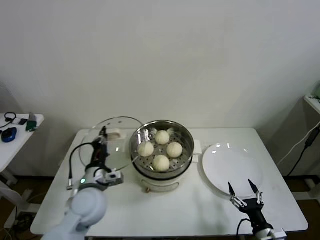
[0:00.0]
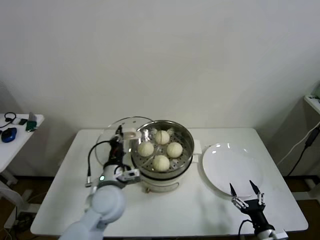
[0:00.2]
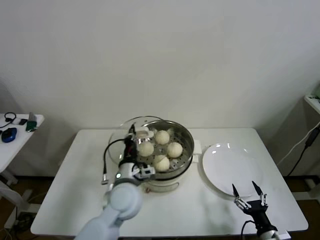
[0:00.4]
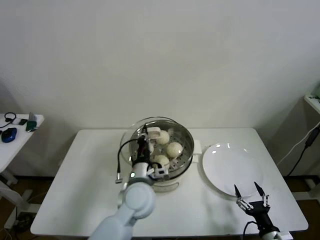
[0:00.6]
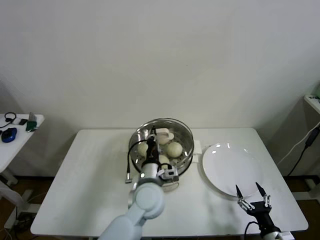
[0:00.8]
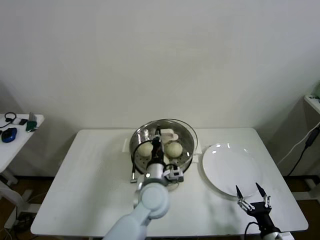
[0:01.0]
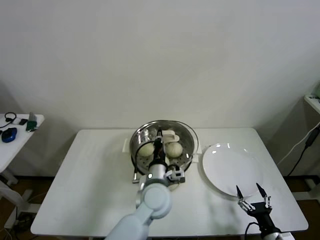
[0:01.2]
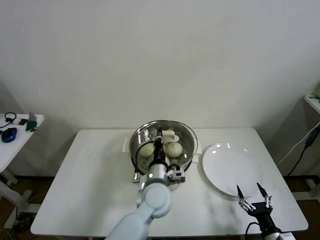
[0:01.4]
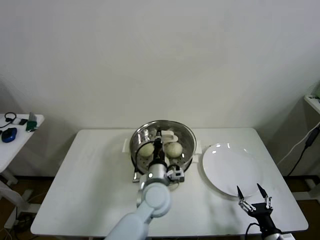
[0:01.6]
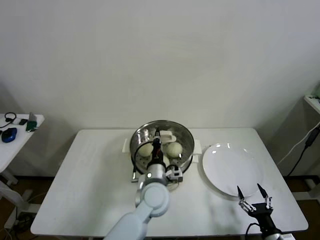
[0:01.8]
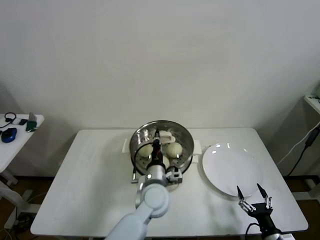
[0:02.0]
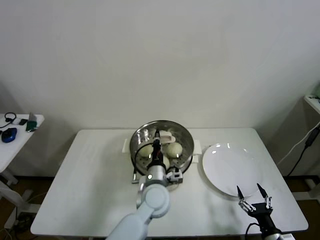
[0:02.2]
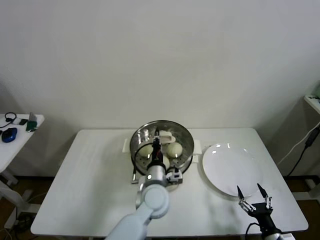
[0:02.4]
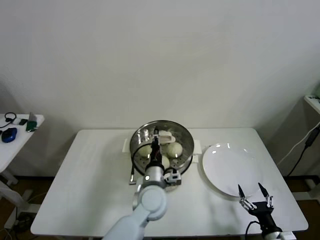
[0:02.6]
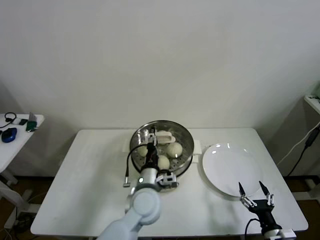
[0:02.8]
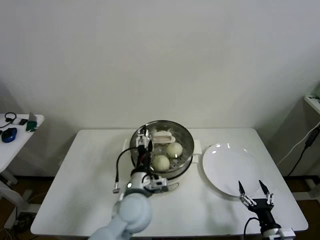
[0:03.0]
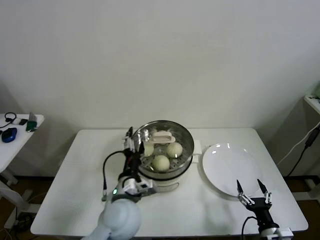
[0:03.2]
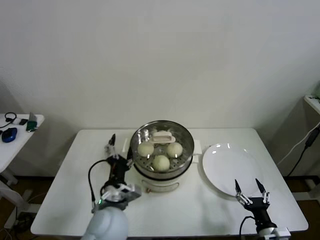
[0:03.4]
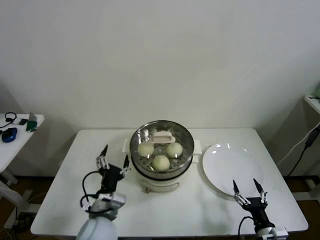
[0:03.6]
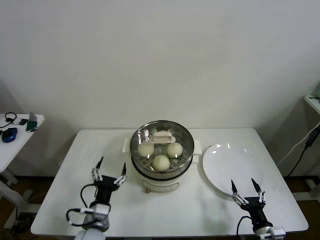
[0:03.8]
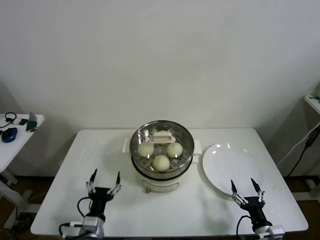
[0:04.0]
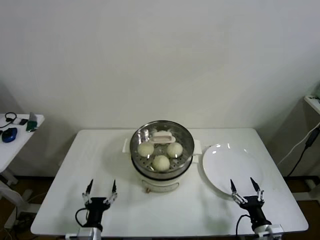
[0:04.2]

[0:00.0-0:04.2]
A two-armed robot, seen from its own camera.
Step, 0:00.0 to 0:02.2: Place the pot lid on the steamer with left gripper.
0:00.0 to 0:01.4: The left gripper goes about 20 cm to the right.
0:01.4 to 0:02.8: The left gripper opens.
0:02.8 to 0:04.2: The left gripper travels to the left, backward and downward by approximately 25 cm, and opens.

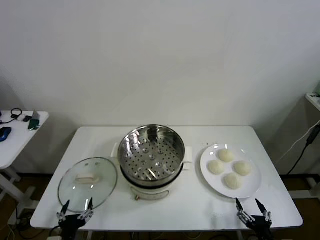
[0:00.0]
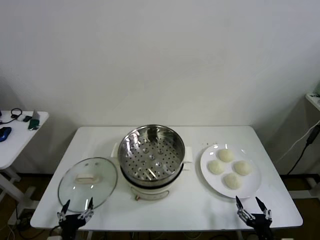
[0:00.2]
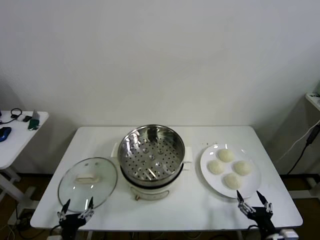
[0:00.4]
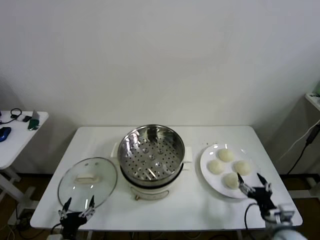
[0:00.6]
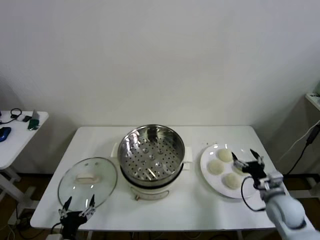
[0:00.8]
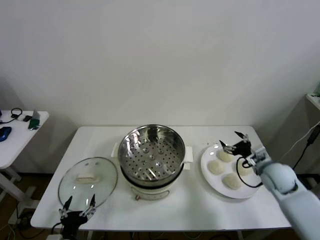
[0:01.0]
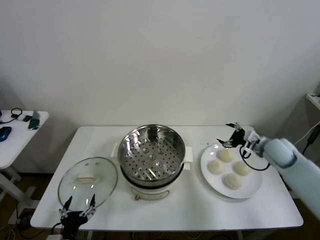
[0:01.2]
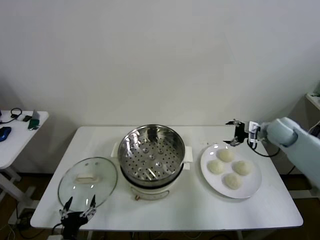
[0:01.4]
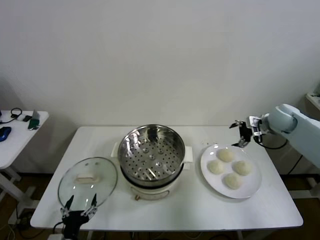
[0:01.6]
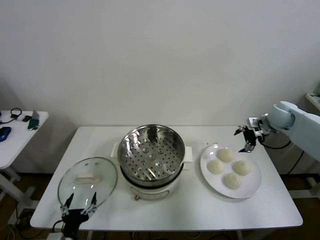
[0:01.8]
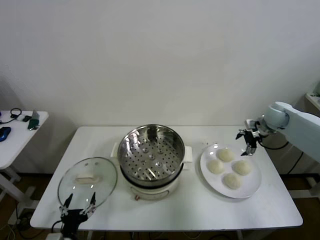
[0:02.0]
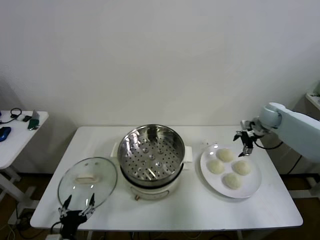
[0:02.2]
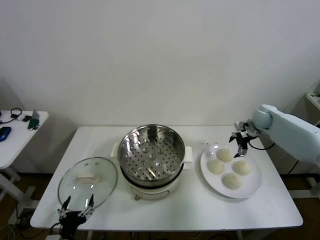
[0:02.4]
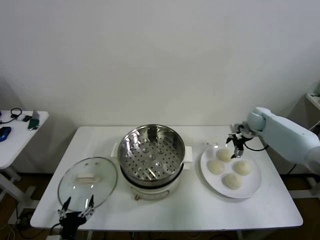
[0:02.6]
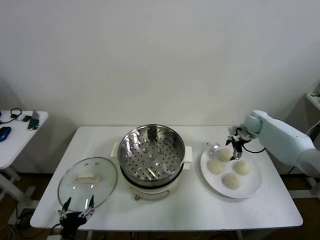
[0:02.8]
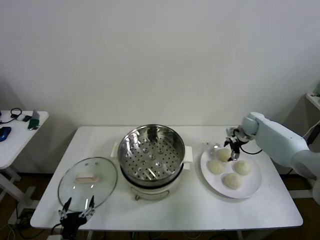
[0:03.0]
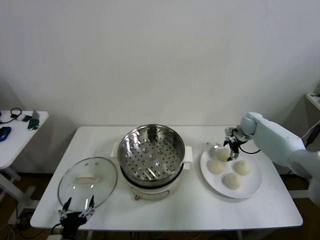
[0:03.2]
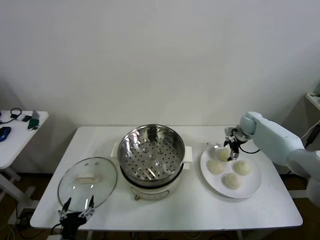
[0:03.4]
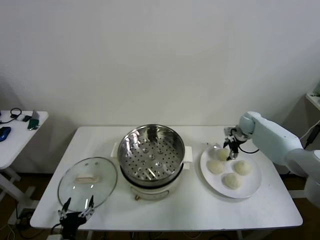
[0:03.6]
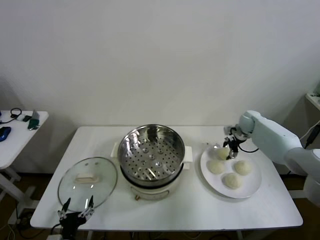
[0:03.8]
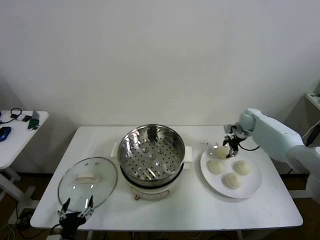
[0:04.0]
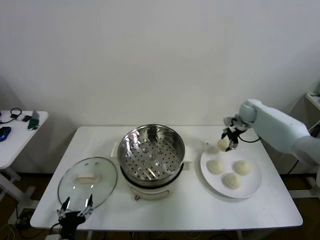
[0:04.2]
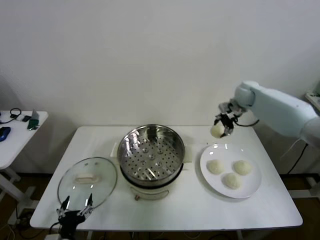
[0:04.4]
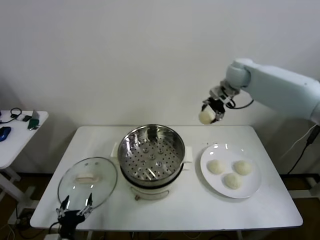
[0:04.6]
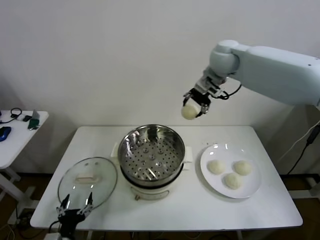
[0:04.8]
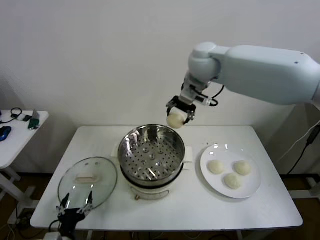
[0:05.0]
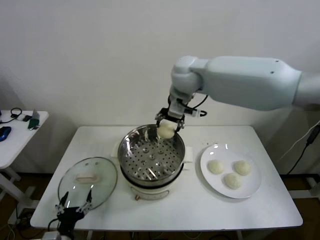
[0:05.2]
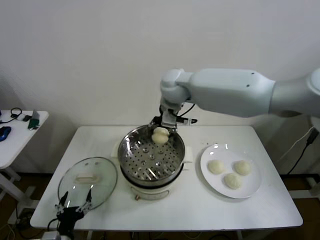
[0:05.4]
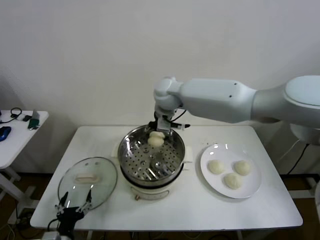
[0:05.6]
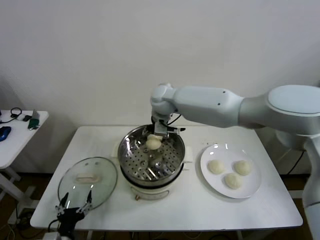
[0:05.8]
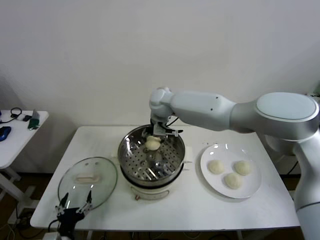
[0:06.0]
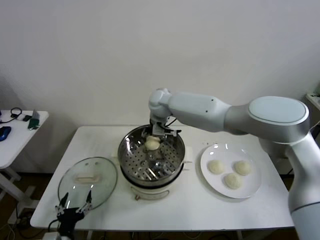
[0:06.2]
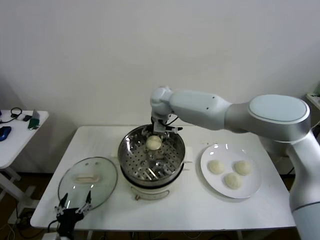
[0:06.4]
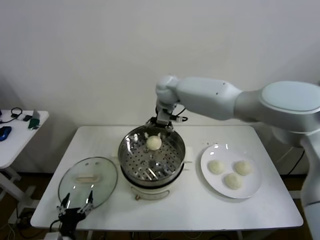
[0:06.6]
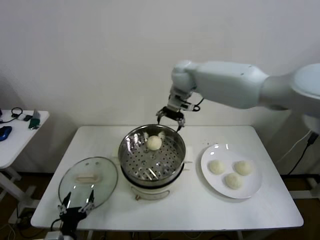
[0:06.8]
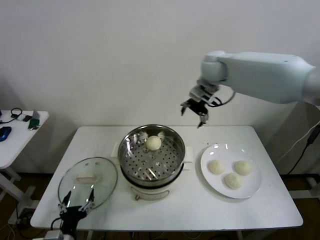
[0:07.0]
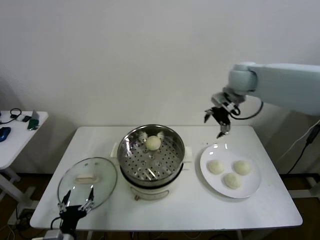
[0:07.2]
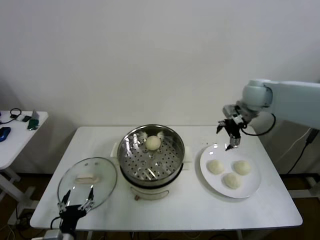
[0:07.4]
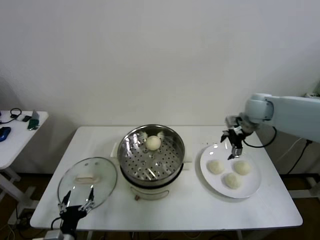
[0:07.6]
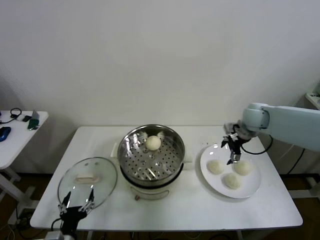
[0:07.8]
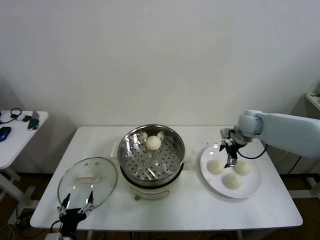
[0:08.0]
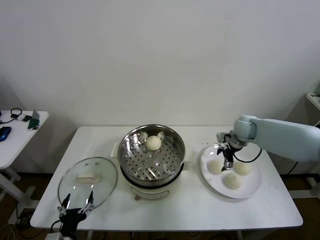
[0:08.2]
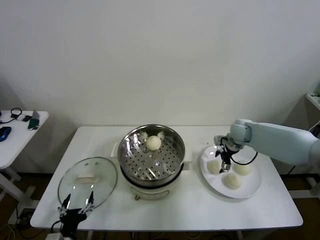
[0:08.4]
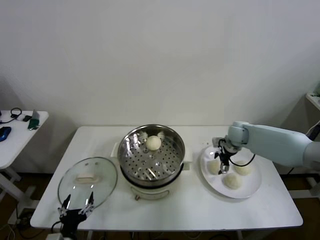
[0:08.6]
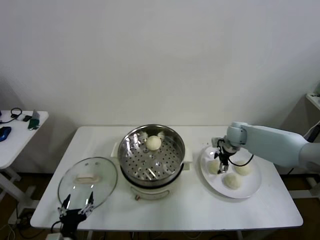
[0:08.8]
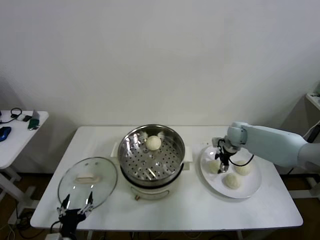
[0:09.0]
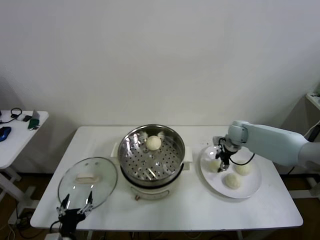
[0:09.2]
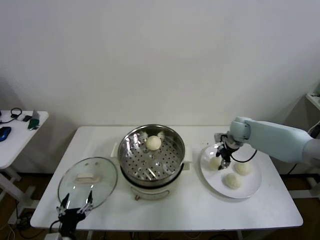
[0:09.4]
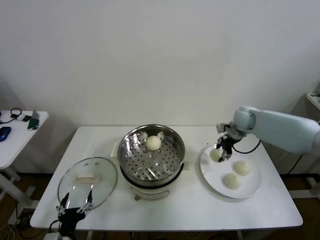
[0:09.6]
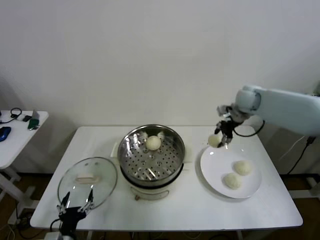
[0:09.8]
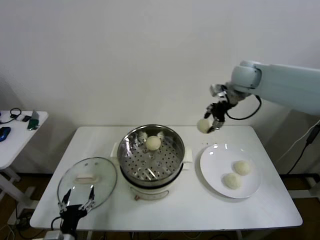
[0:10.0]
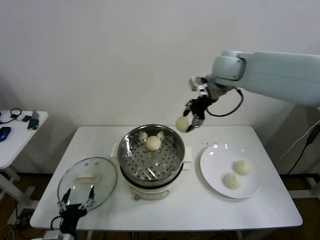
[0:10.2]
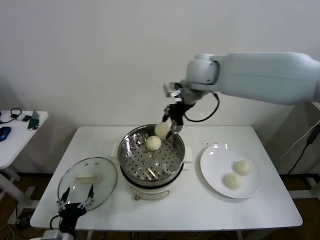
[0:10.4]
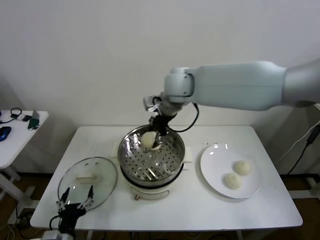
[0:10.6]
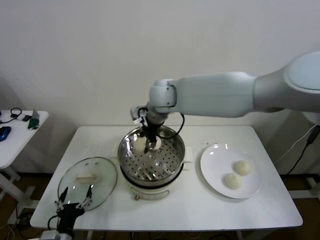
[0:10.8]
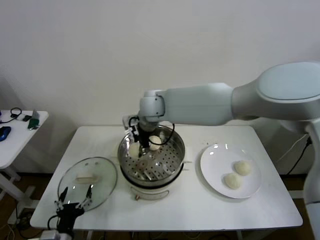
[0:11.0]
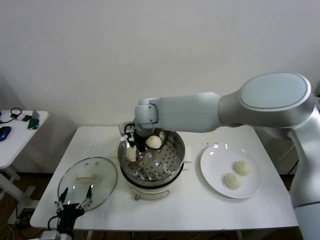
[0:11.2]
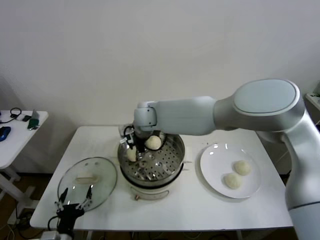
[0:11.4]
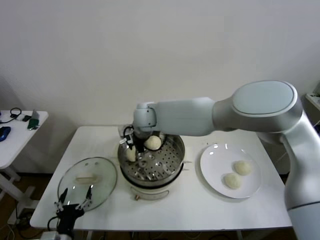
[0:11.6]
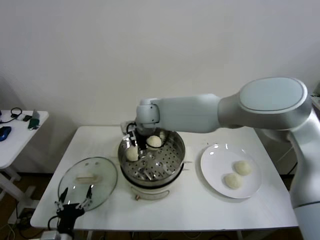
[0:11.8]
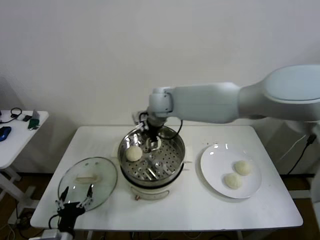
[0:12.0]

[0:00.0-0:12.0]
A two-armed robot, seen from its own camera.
Step, 0:00.0 to 0:03.8: Grasp the baozi in the plate with right gripper.
Step, 0:04.2 to 0:06.2: Place the baozi on the steamer with right gripper.
Step, 0:06.4 to 0:09.0: Grasp the baozi in the plate with right gripper.
Step, 0:09.2 to 0:11.6: Place the baozi on the steamer with right gripper.
0:01.6 to 0:03.0: The right gripper goes roughly 15 cm downward and forward.
0:03.0 to 0:04.4: The right gripper heads upward and to the left, covering some 20 cm, and closes.
0:04.4 to 0:06.0: The right gripper travels to the left by approximately 30 cm.
0:06.0 to 0:07.6: The right gripper is displaced to the right by about 35 cm, and opens its fingers.
0:07.6 to 0:09.0: The right gripper travels downward by some 15 cm, and closes up.
0:09.0 to 0:10.4: The right gripper goes some 35 cm upward and to the left, and closes up.
0:10.4 to 0:12.0: The right gripper is displaced downward and to the left by some 10 cm, and opens up.

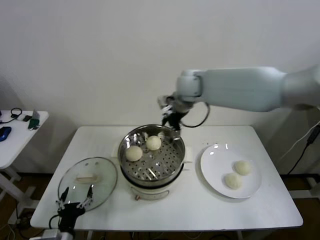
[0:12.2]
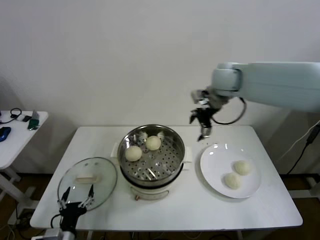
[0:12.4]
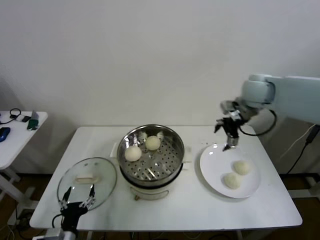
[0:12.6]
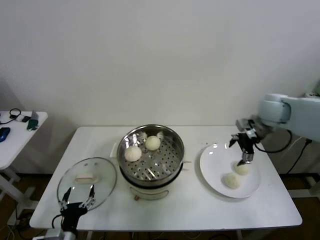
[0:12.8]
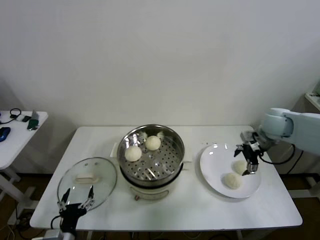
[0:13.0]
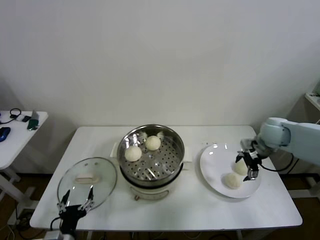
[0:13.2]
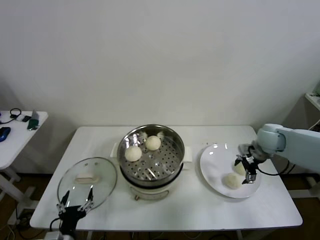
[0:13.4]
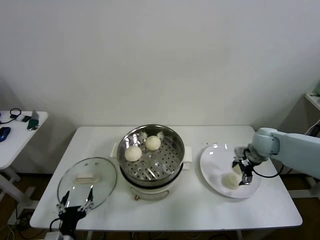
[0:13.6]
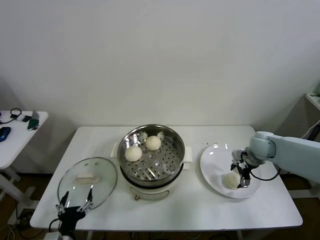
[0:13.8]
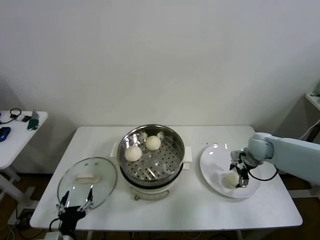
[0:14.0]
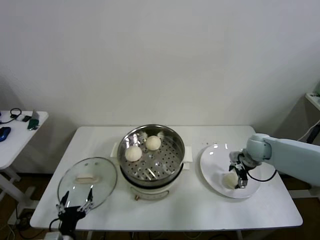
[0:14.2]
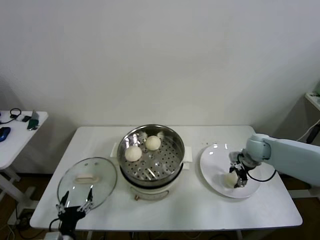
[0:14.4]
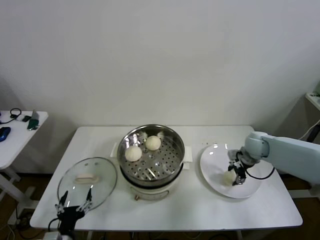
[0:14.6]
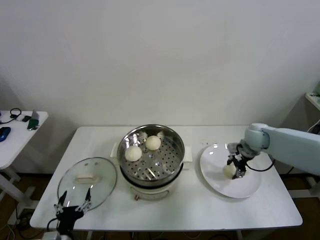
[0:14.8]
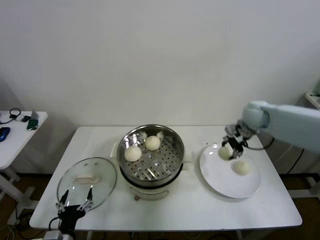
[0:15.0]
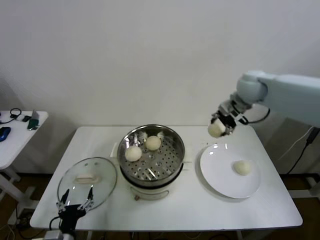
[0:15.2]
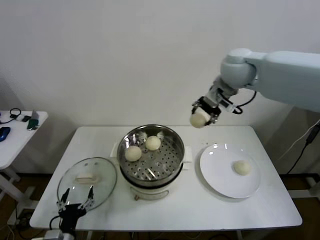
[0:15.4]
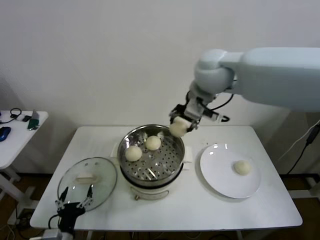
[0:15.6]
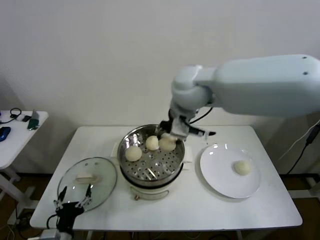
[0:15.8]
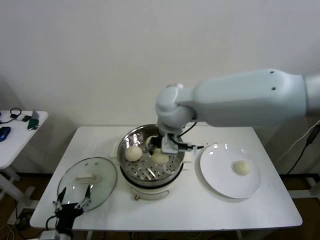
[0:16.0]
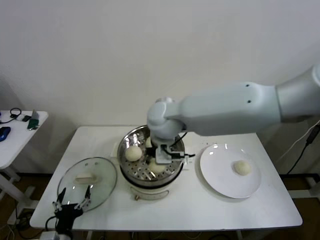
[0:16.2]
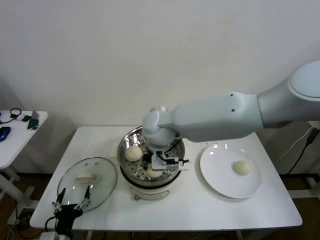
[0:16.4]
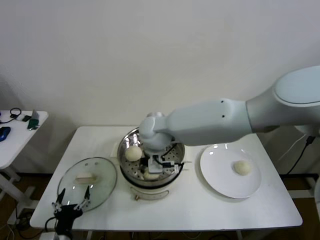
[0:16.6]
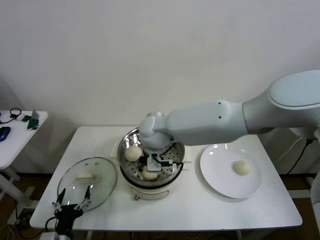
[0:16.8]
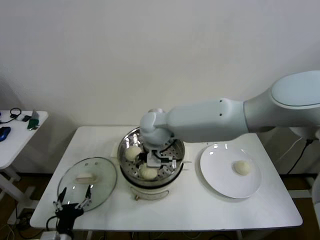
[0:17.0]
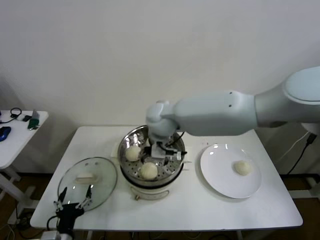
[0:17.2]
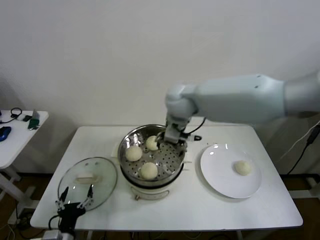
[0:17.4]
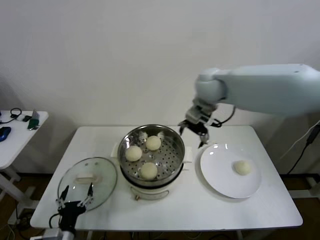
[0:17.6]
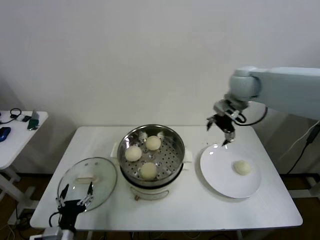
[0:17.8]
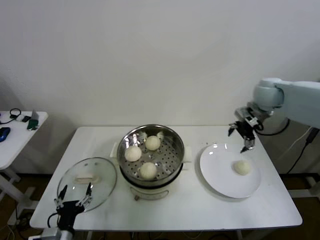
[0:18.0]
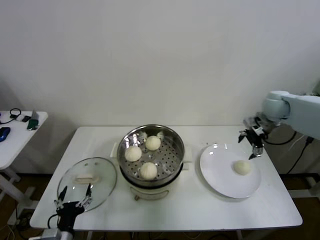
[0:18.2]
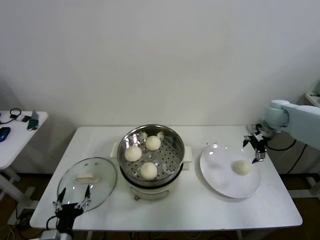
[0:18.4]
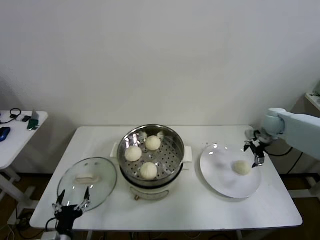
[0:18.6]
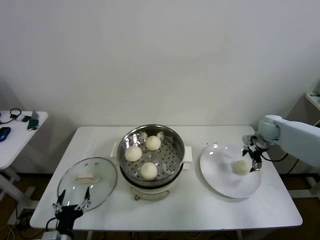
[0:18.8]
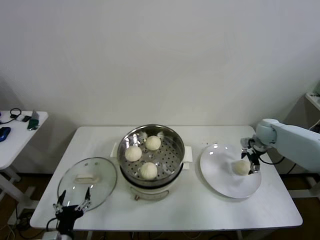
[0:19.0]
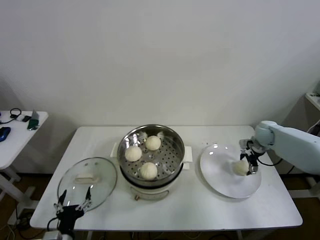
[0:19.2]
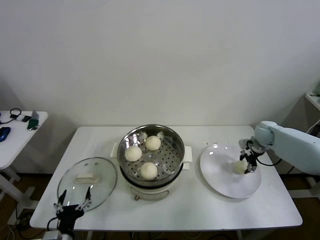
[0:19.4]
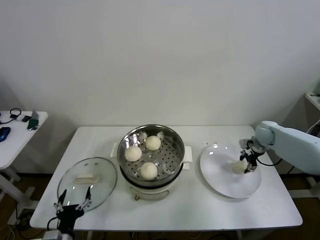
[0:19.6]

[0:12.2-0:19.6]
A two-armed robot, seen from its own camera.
Step, 0:12.2 to 0:14.2: Grasp the baozi in the plate with right gripper.
Step, 0:14.4 to 0:16.8: Place the baozi on the steamer with right gripper.
Step, 0:17.0 to 0:19.4: Grasp the baozi in the plate with right gripper.
0:12.2 to 0:13.6: The right gripper is displaced to the right and downward by about 35 cm.
0:13.6 to 0:15.2: The right gripper is displaced upward and to the left by about 25 cm, and closes.
0:15.2 to 0:16.6: The right gripper shifts roughly 30 cm to the left.
0:16.6 to 0:18.2: The right gripper goes roughly 40 cm to the right, and opens up.
0:18.2 to 0:19.6: The right gripper shifts about 15 cm downward, and closes.
